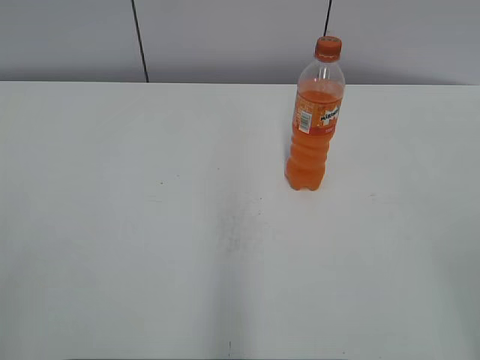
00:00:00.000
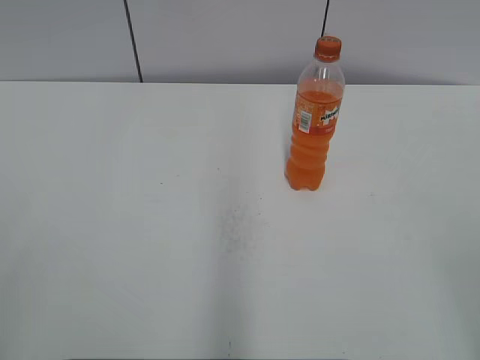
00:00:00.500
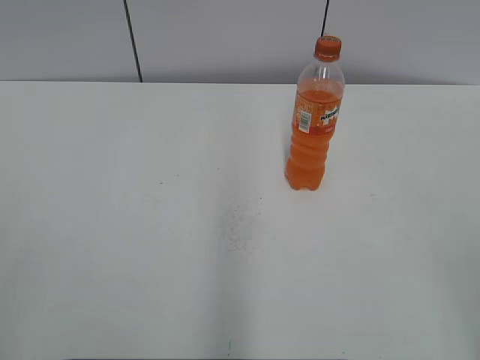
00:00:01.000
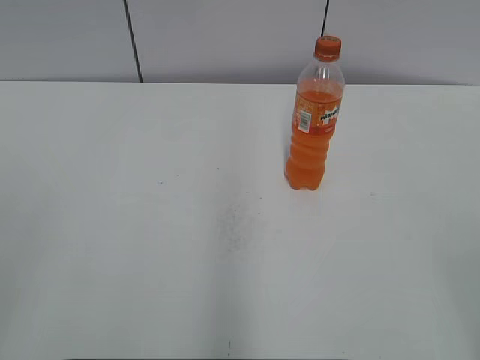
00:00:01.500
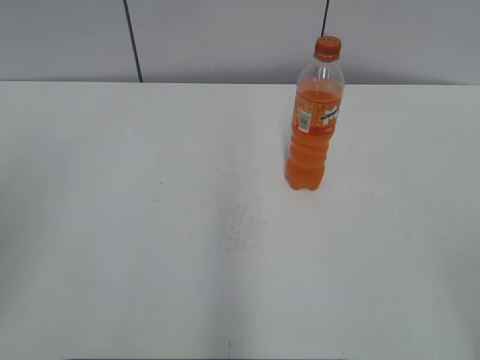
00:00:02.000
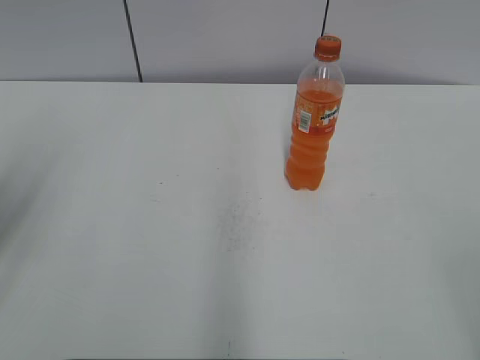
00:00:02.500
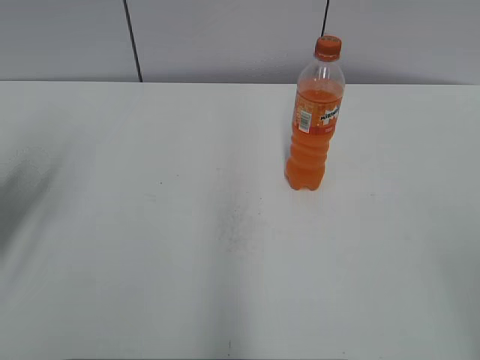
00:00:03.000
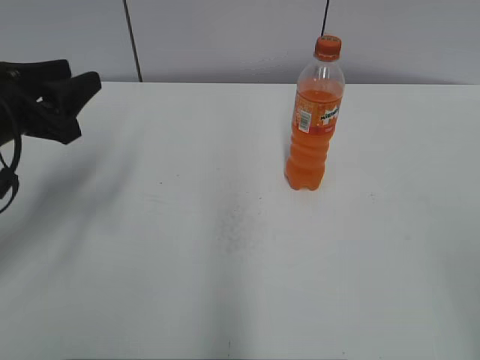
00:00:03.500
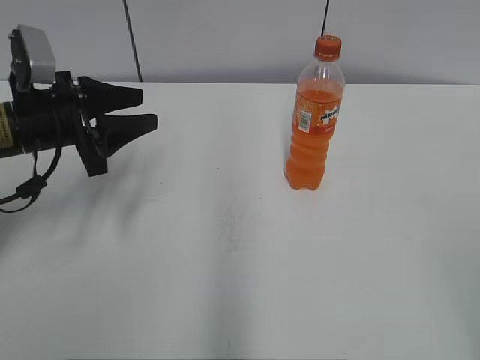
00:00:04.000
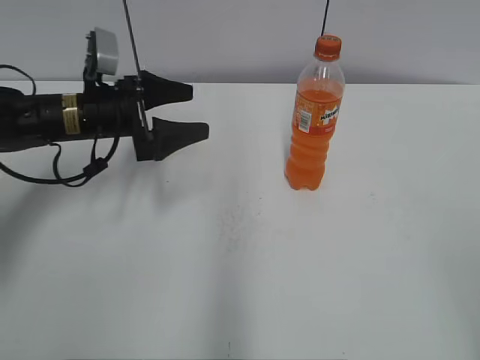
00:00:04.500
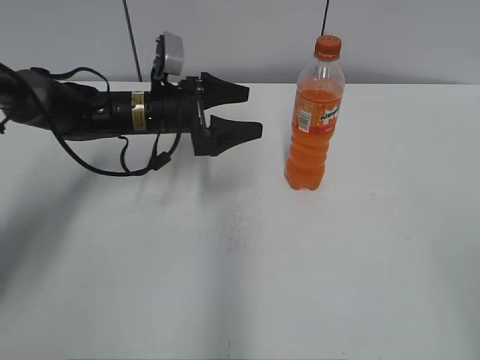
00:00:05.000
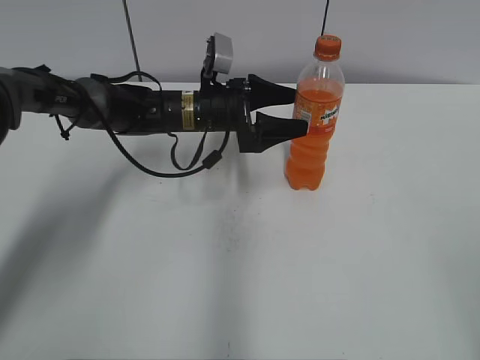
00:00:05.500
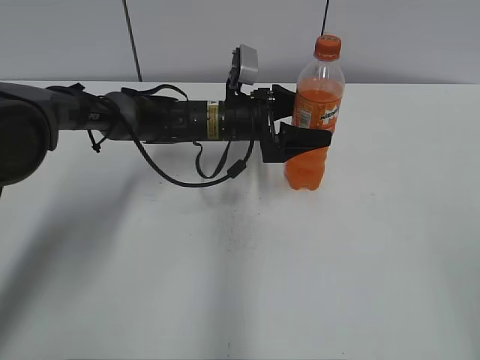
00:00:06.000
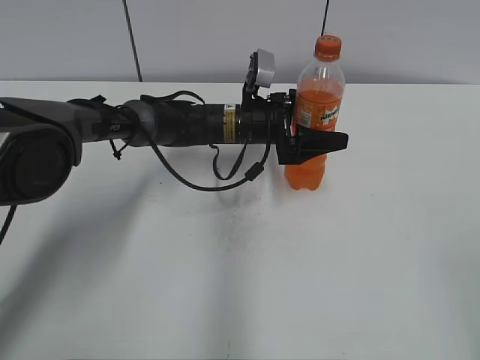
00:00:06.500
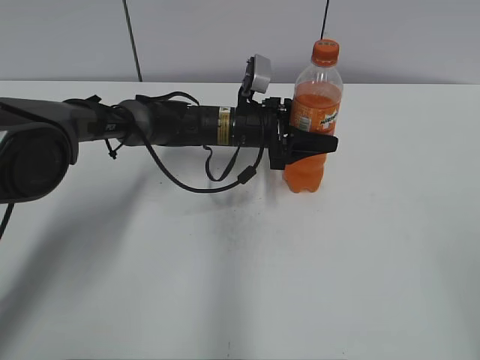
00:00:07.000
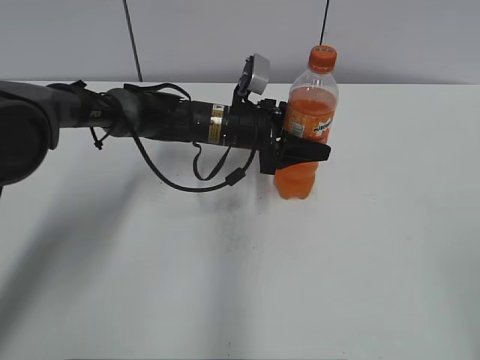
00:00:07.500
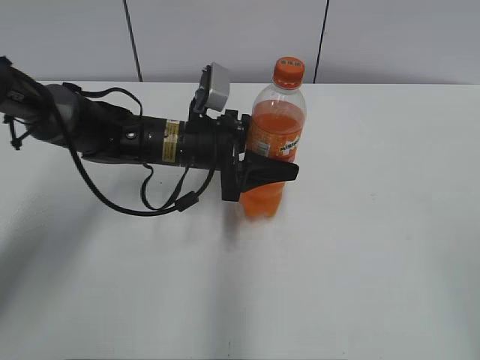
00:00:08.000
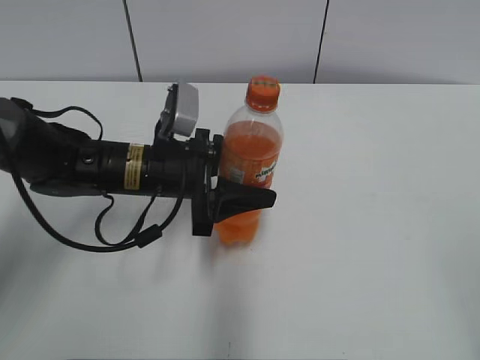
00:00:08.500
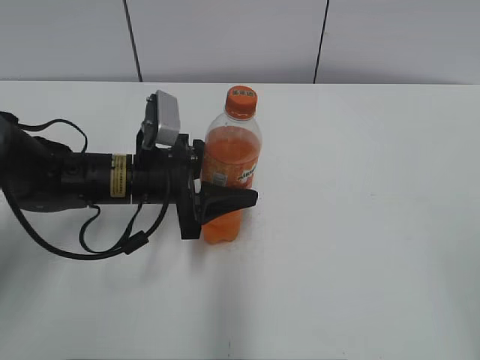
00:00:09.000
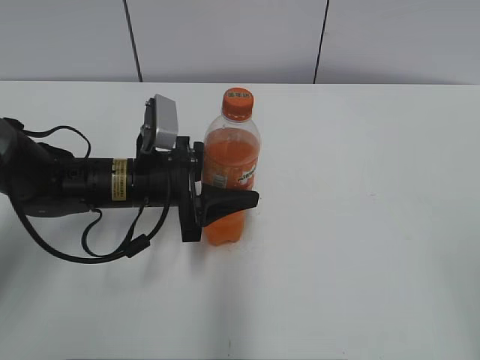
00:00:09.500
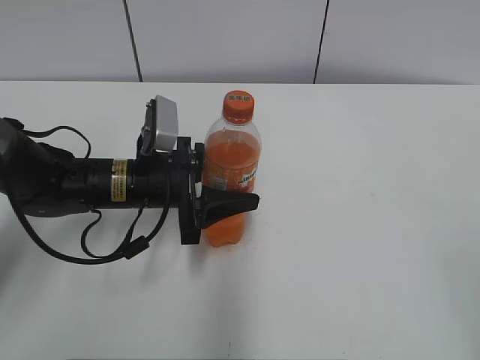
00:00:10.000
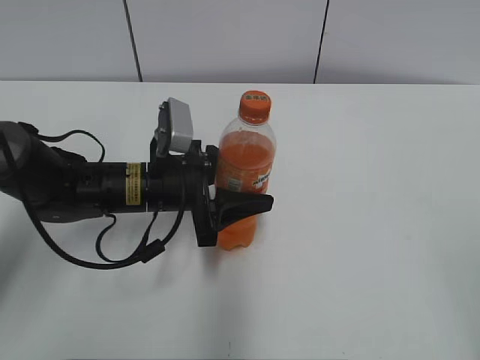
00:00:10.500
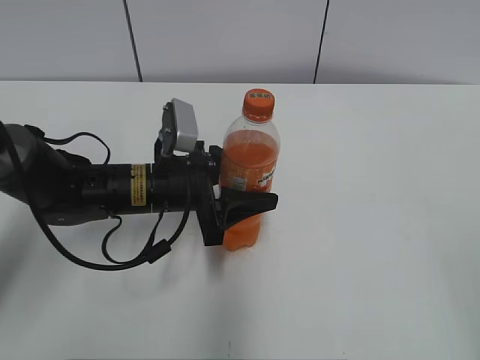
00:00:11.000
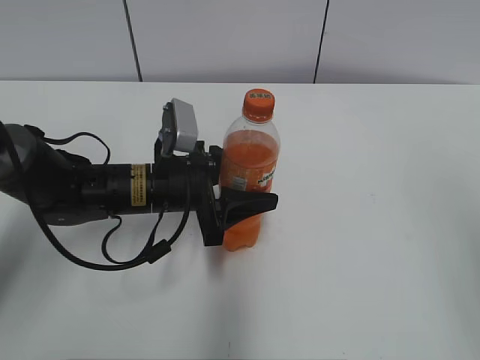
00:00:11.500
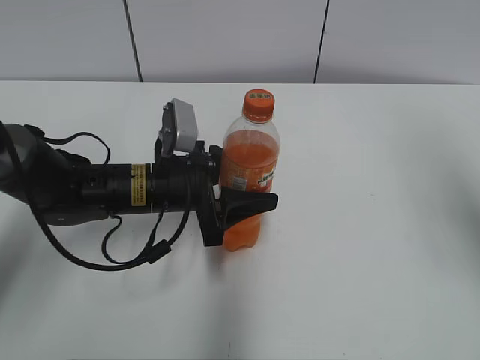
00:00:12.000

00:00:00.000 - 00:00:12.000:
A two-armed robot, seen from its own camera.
Step, 00:00:00.000 - 00:00:06.500: Grab the Mirinda with the left hand.
Step, 00:00:07.000 - 00:00:11.000: Lift the Mirinda with the left hand.
00:00:02.000 - 00:00:04.000: The left gripper travels forward and downward by about 30 cm.
00:00:04.000 - 00:00:06.000: The left gripper heads to the right and forward, covering roughly 25 cm, and opens its fingers.
00:00:06.000 - 00:00:08.000: The left gripper moves backward, approximately 5 cm, and closes.
00:00:08.000 - 00:00:10.000: The left gripper moves backward and to the left, about 10 cm.
00:00:10.000 - 00:00:12.000: The right gripper heads forward, covering roughly 20 cm.

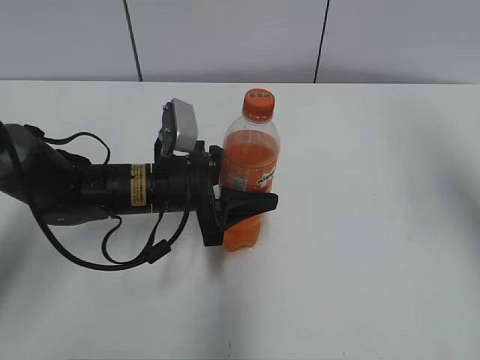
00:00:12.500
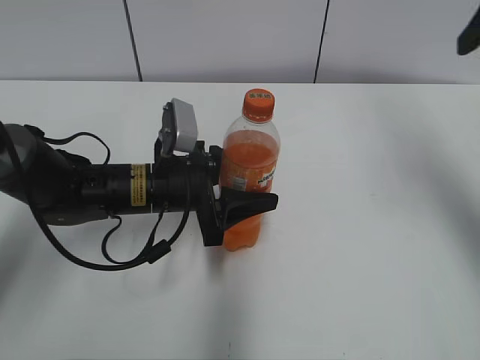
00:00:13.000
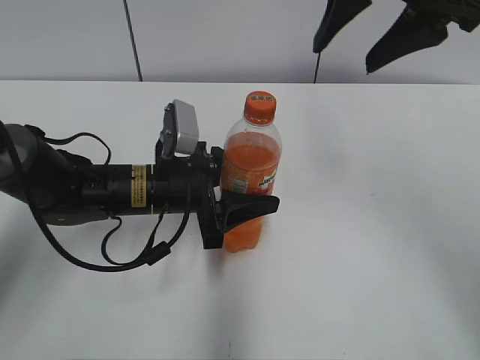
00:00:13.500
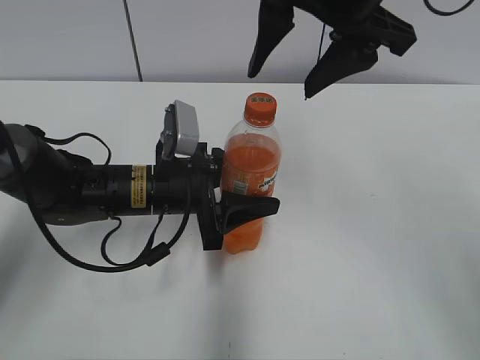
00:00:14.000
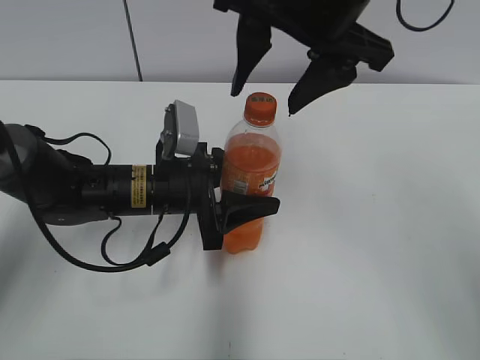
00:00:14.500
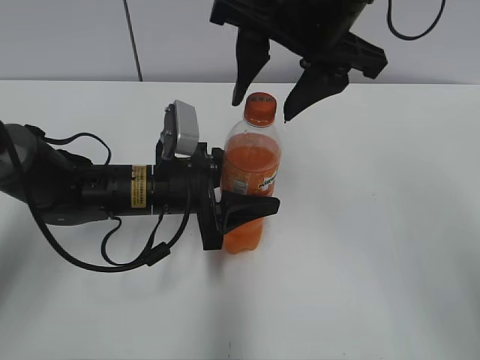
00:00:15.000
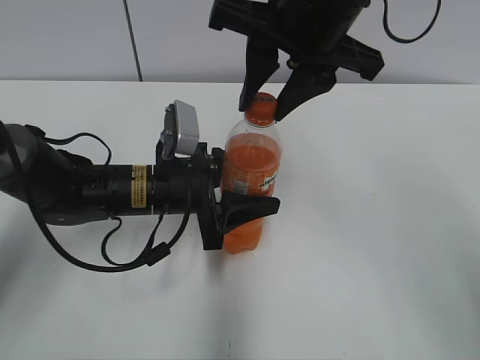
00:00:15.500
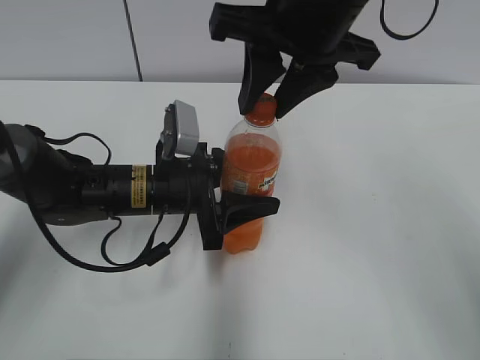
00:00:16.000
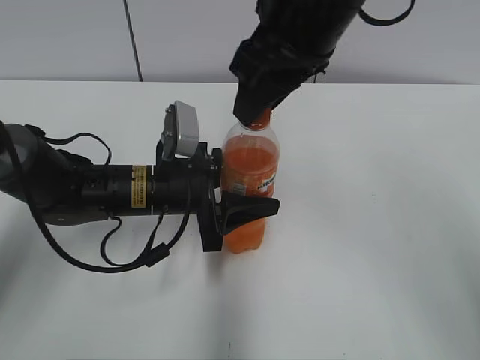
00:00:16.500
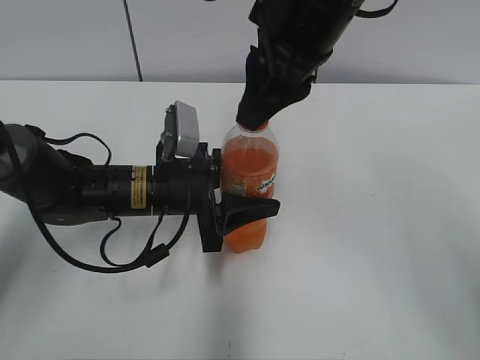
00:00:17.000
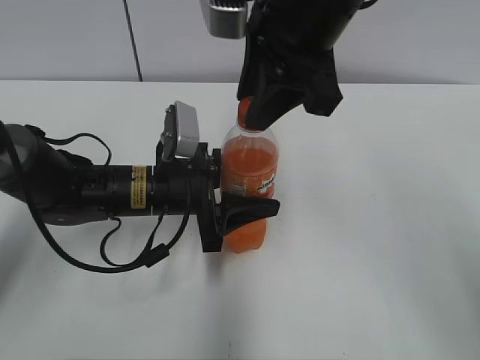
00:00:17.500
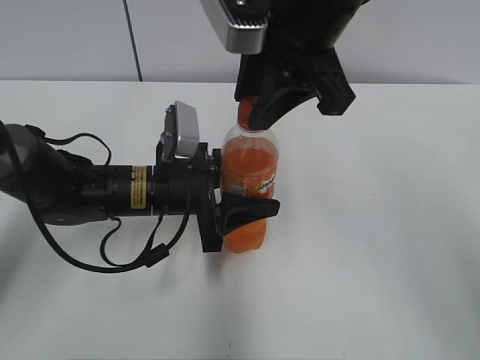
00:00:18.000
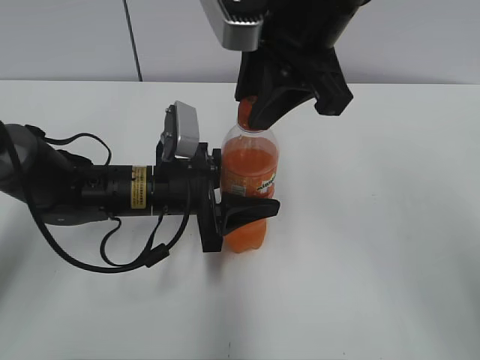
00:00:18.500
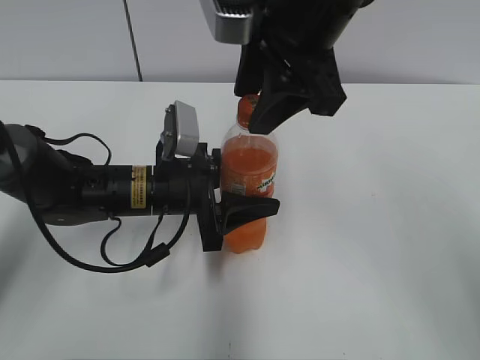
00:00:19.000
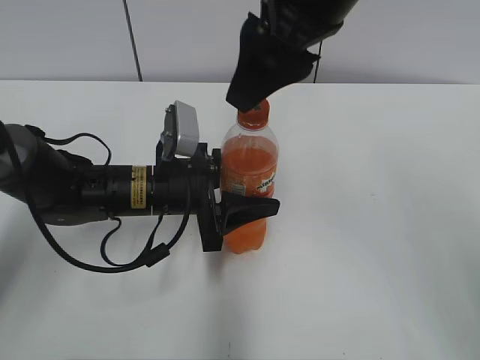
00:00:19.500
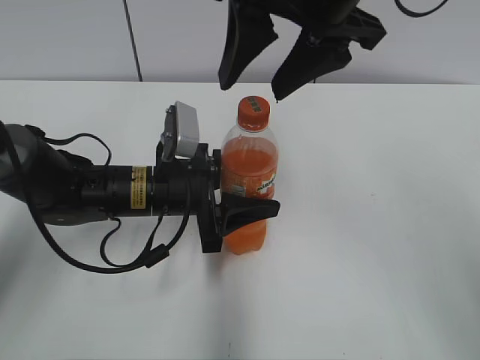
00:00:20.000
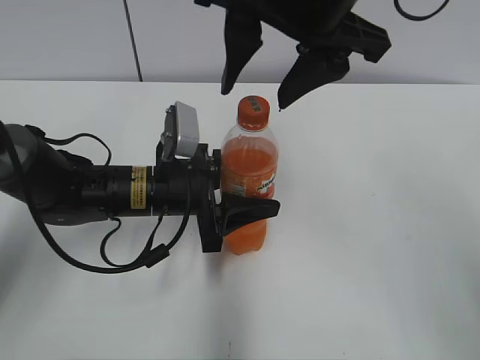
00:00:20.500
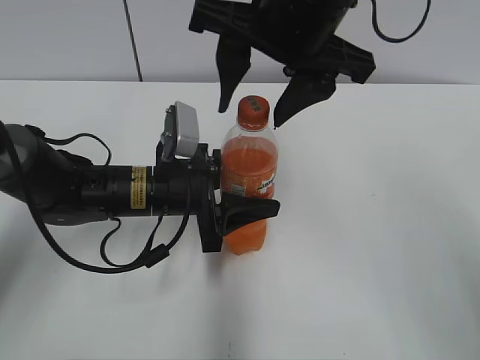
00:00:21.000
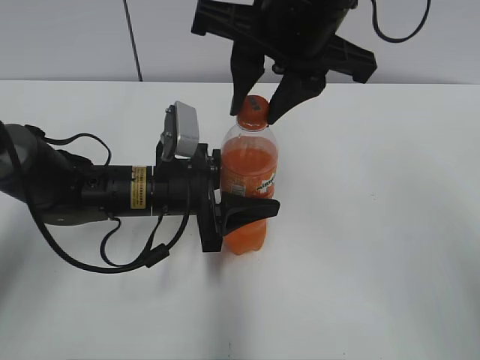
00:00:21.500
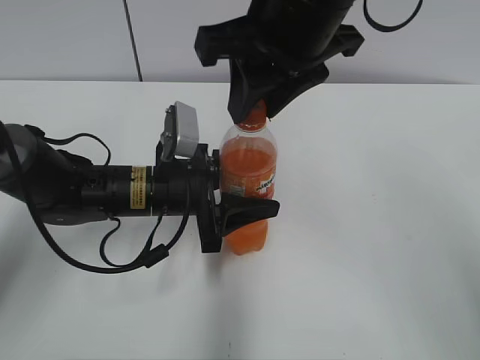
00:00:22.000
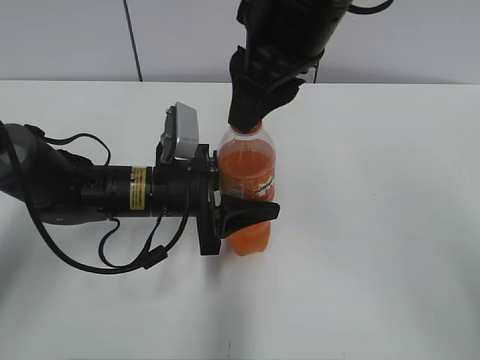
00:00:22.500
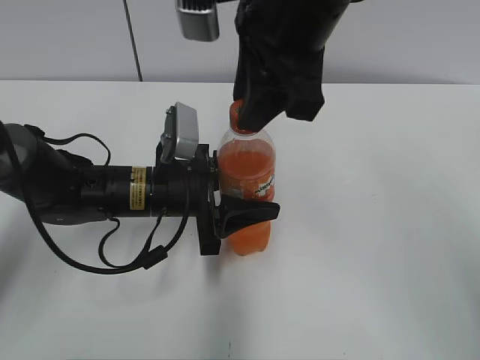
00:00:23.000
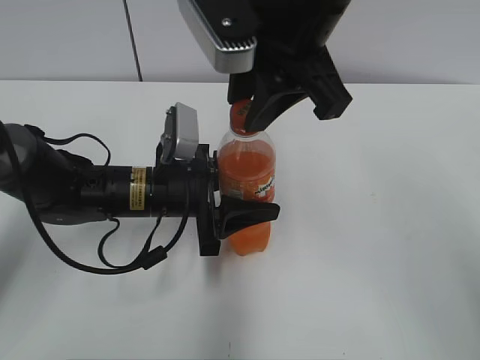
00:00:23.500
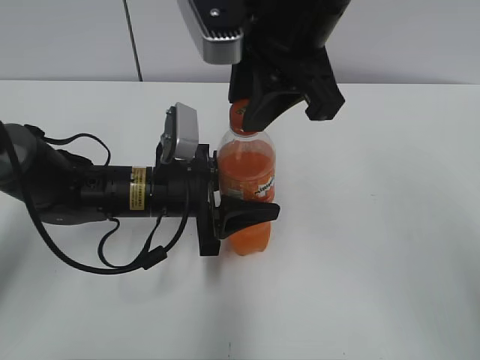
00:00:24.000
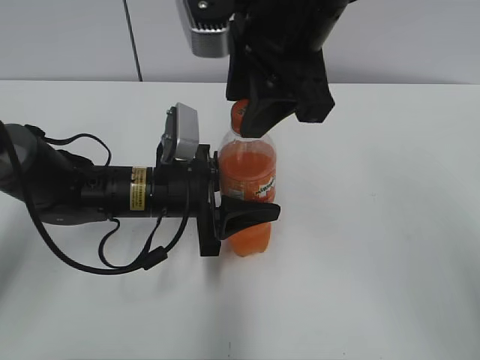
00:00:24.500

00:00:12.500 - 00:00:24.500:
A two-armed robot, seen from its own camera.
00:00:12.500 - 00:00:14.500: The right gripper goes some 25 cm to the left.
00:00:14.500 - 00:00:16.500: The right gripper closes its fingers.
00:00:18.500 - 00:00:20.500: The right gripper opens up.
00:00:20.500 - 00:00:22.500: The right gripper closes its fingers.
00:00:22.500 - 00:00:24.500: The right gripper opens.

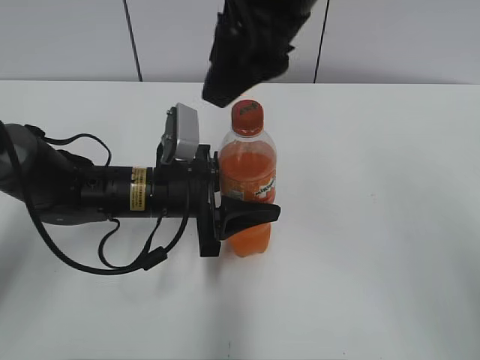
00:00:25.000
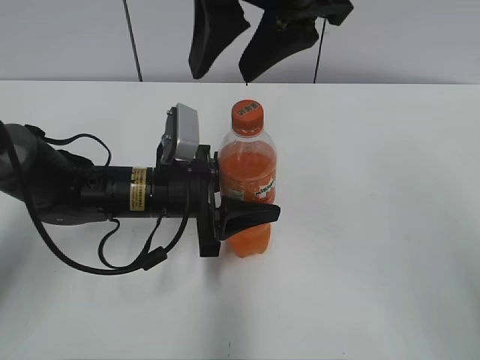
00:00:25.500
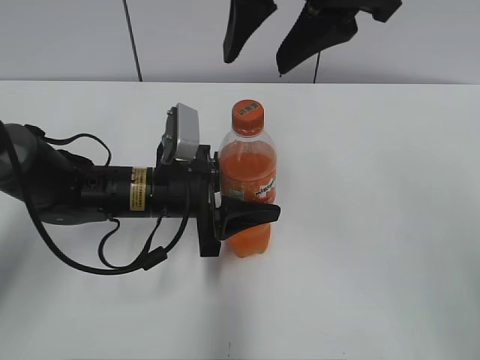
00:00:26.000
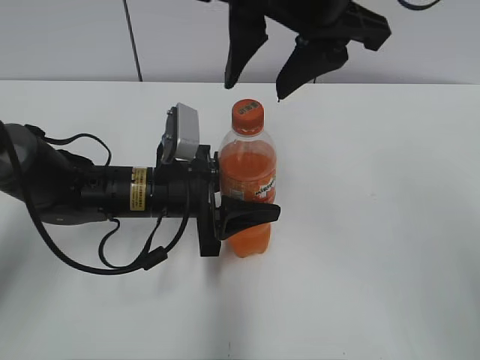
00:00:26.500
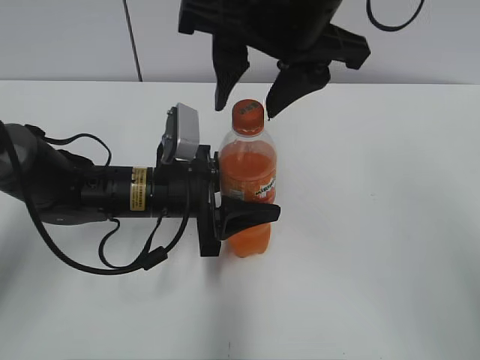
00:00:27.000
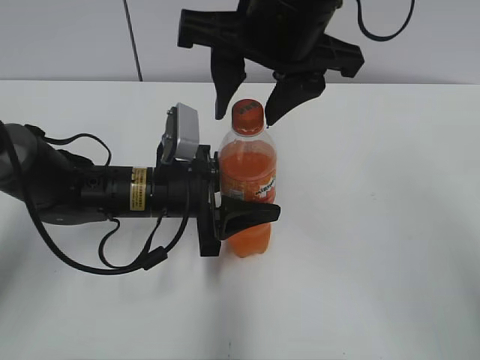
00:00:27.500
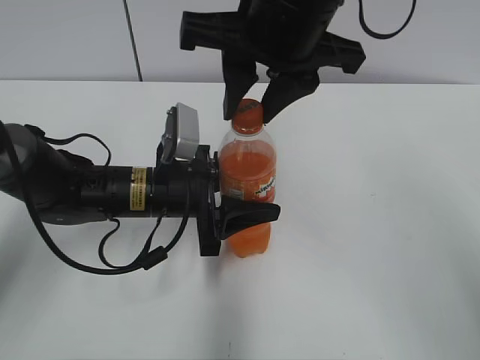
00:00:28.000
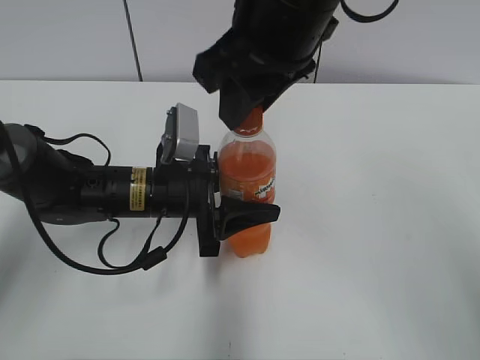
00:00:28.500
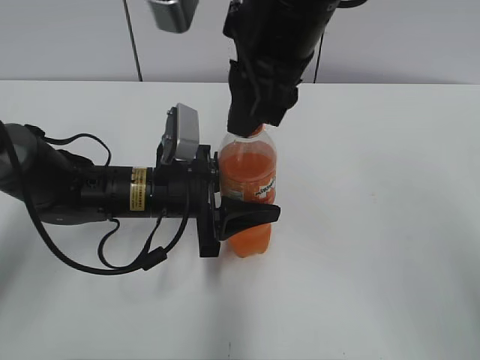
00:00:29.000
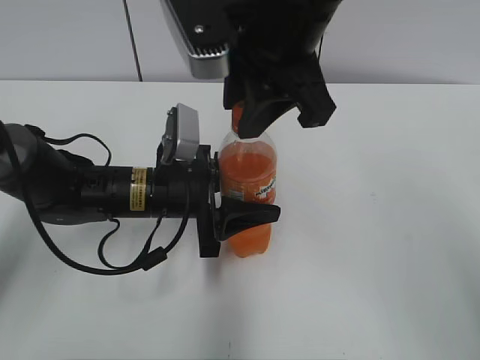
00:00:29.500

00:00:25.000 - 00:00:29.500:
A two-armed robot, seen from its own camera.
00:00:27.000 - 00:00:29.500: The right gripper closes its fingers.
